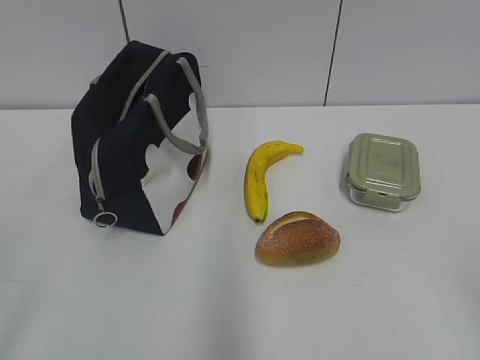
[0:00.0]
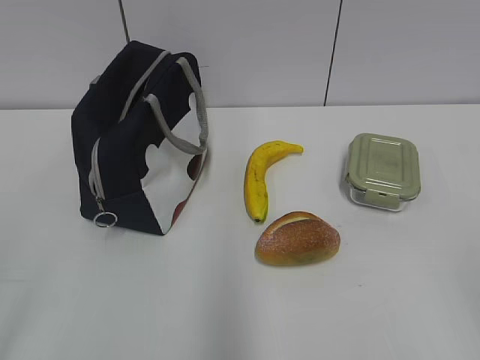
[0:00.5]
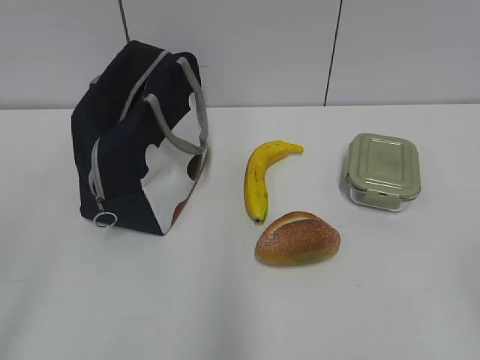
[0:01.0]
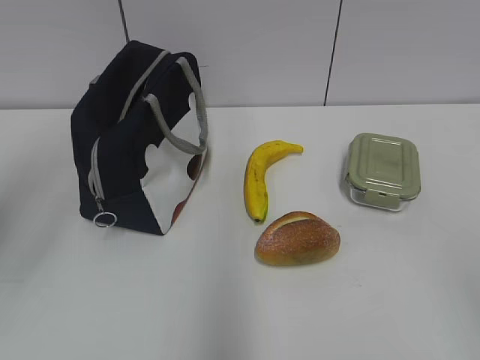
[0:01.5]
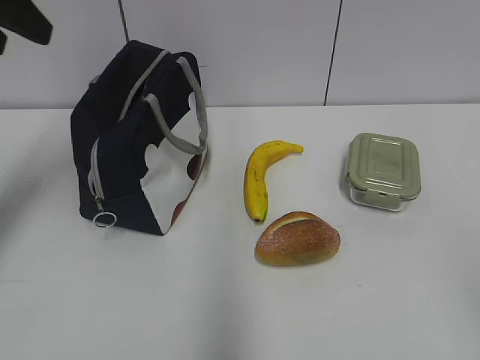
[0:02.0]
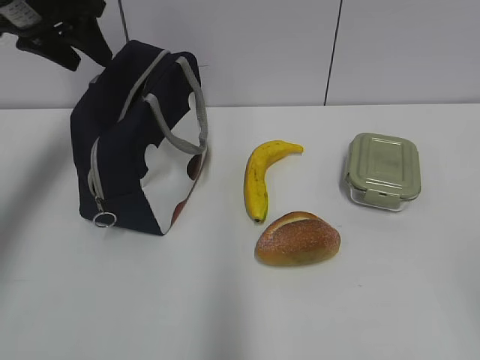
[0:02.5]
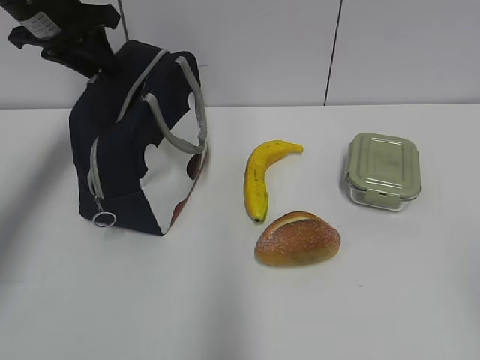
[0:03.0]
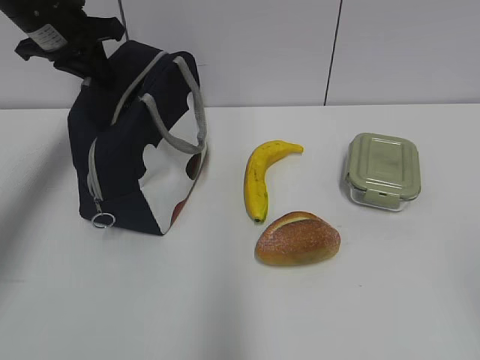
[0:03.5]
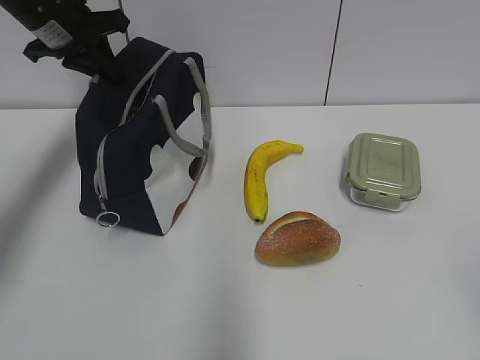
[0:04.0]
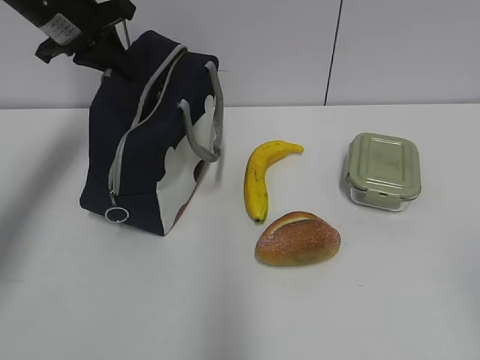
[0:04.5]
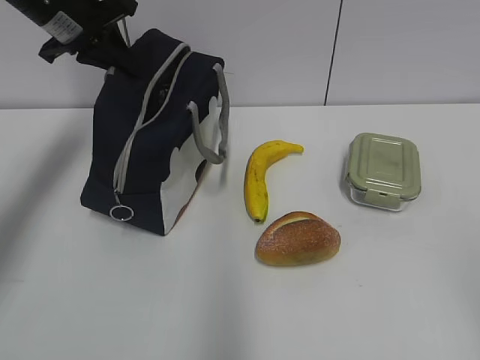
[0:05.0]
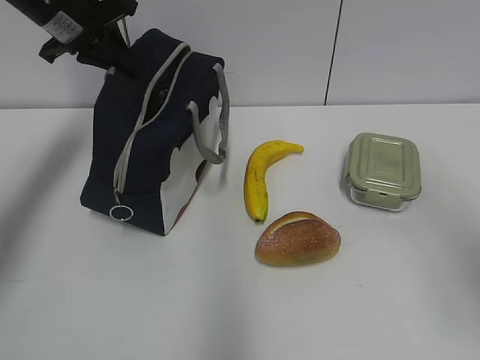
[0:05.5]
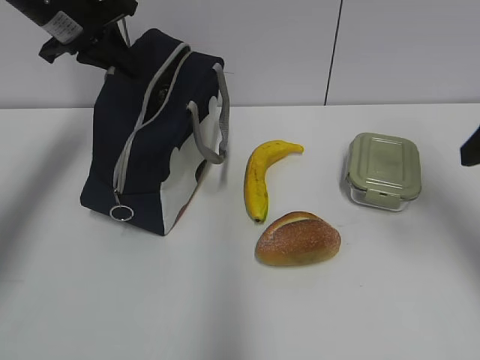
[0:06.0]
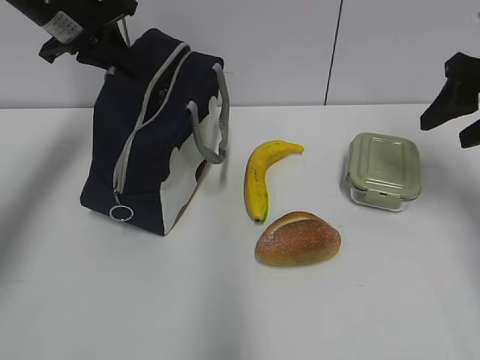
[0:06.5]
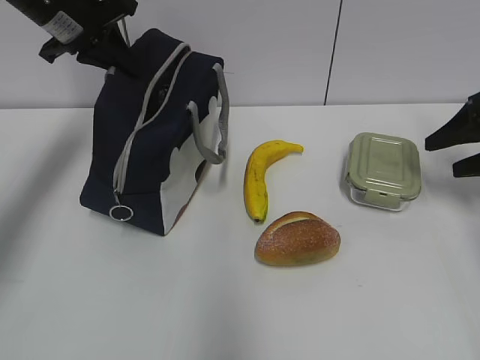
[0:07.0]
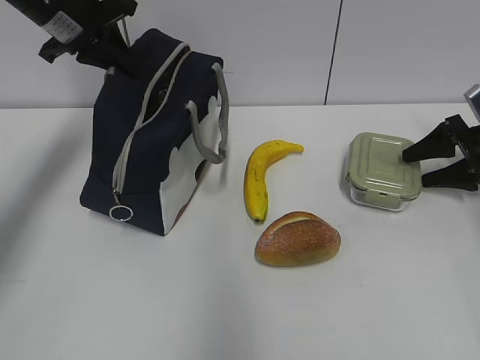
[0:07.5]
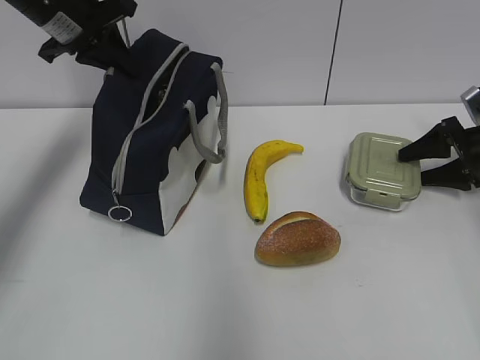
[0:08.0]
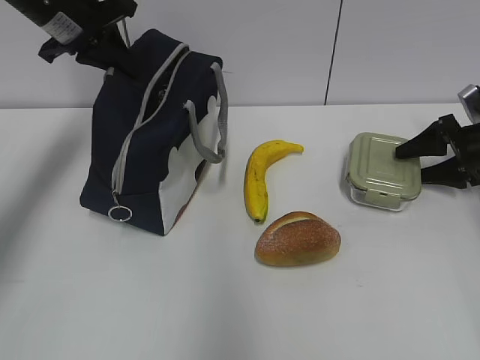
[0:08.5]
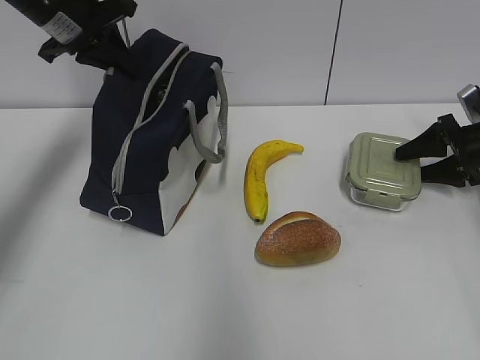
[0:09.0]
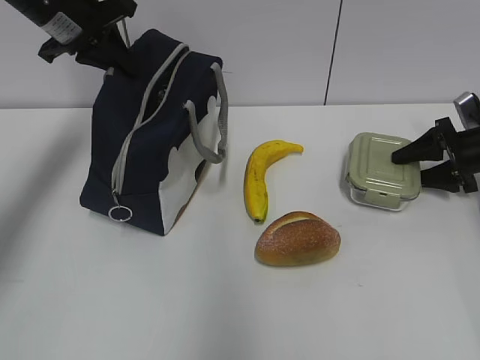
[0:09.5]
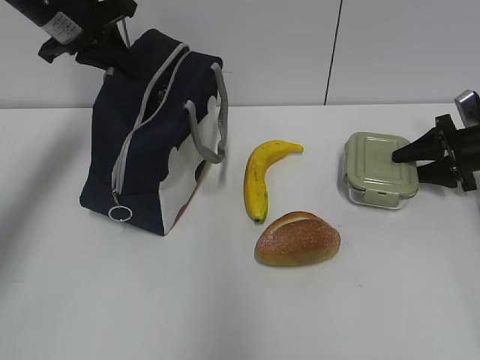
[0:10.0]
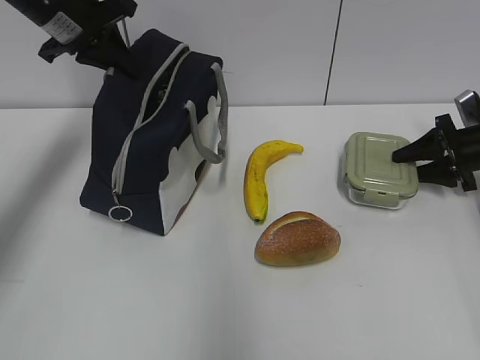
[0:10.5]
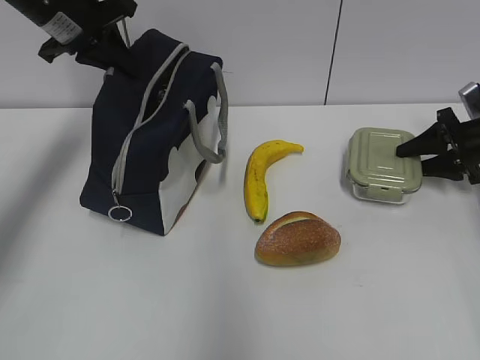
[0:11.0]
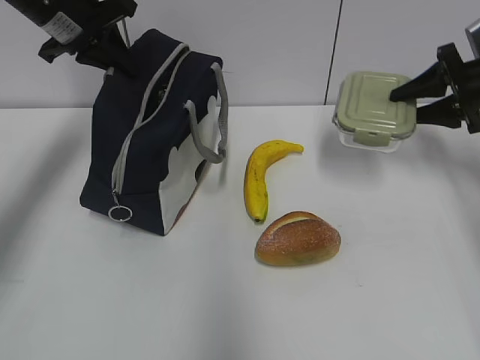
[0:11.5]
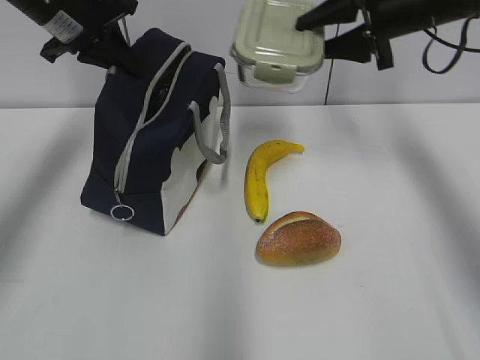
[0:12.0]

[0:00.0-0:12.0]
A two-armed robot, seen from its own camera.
Step, 0:00.0 to 0:10.0: Grab the lunch box with your right hand.
0:02.0 to 0:04.0: The left gripper goes roughly 20 cm forward and downward, and closes up.
0:04.0 to 0:06.0: The right gripper shifts roughly 25 cm forward.
0:06.0 to 0:08.0: The right gripper goes roughly 30 cm downward, forward and to the right.
0:08.0 to 0:10.0: There are only small adjustments of the grippers.
0:10.0 to 0:12.0: The right gripper travels upward and to the left by approximately 25 cm.

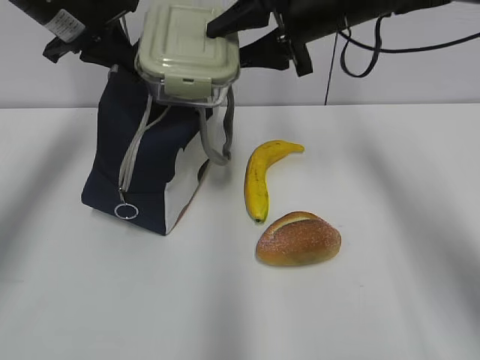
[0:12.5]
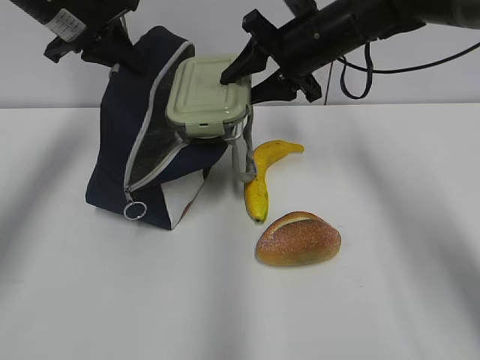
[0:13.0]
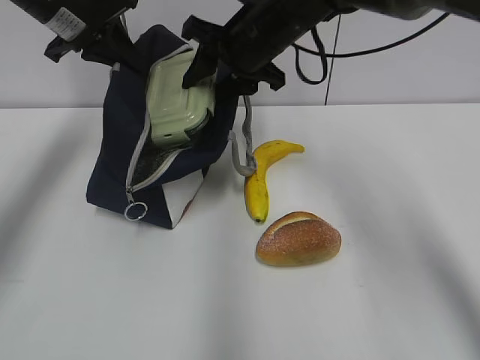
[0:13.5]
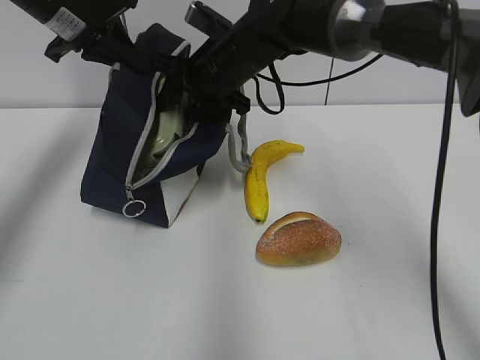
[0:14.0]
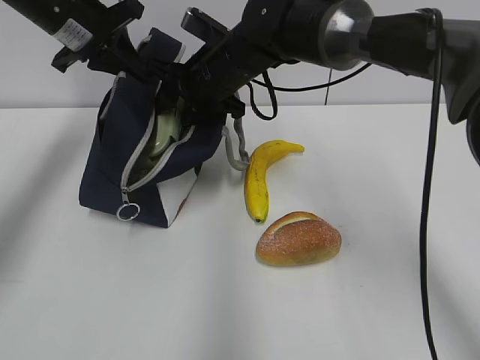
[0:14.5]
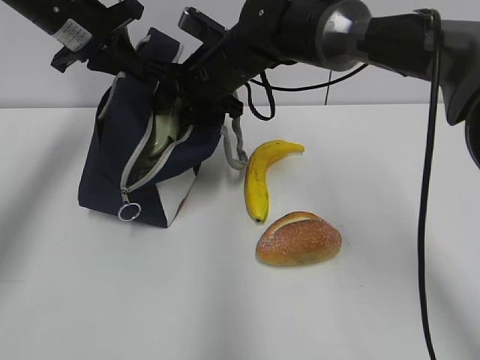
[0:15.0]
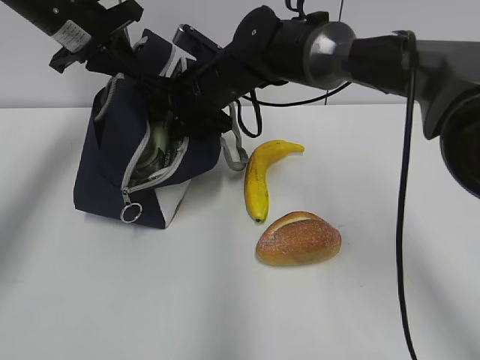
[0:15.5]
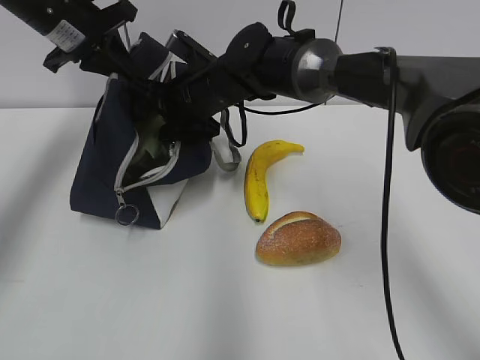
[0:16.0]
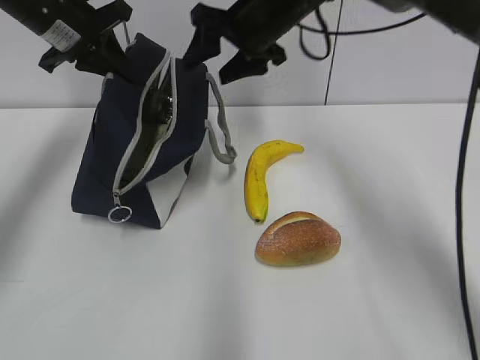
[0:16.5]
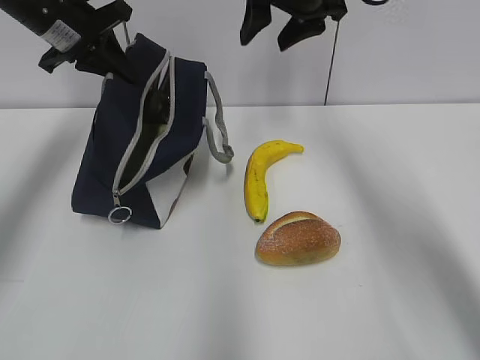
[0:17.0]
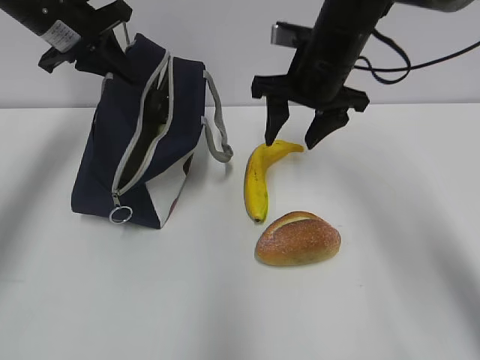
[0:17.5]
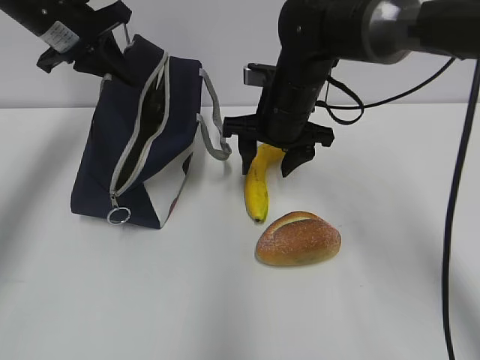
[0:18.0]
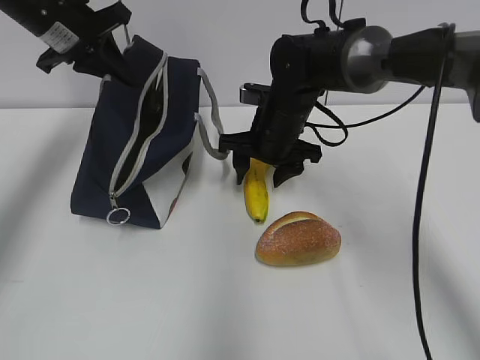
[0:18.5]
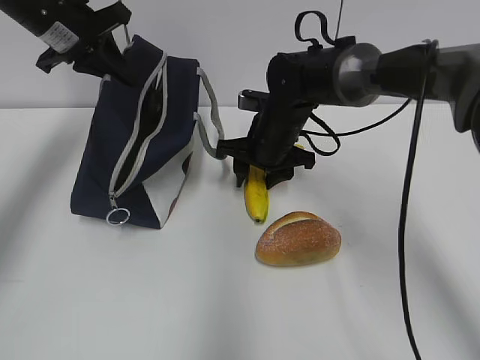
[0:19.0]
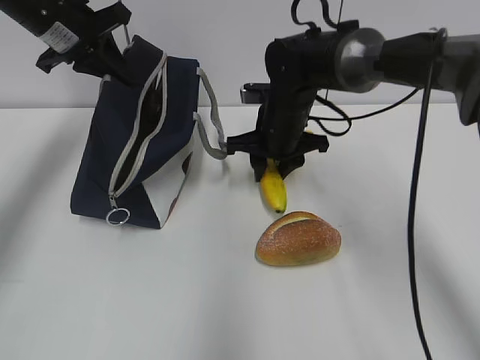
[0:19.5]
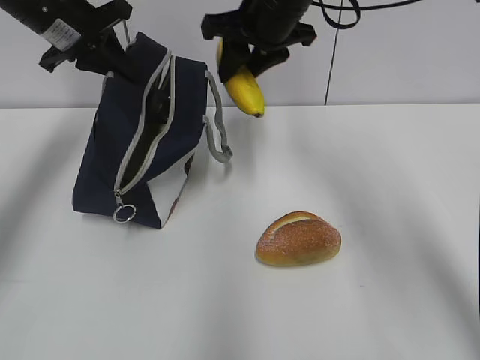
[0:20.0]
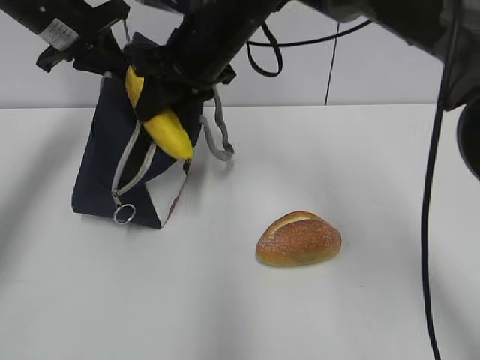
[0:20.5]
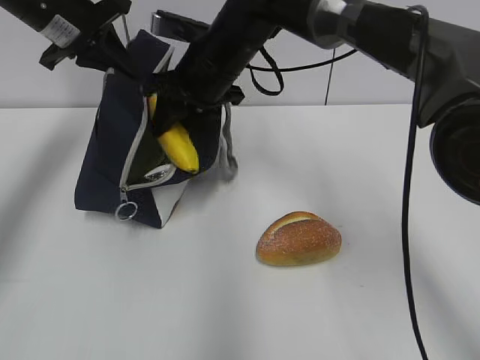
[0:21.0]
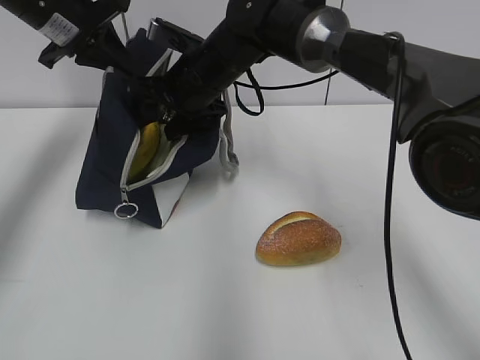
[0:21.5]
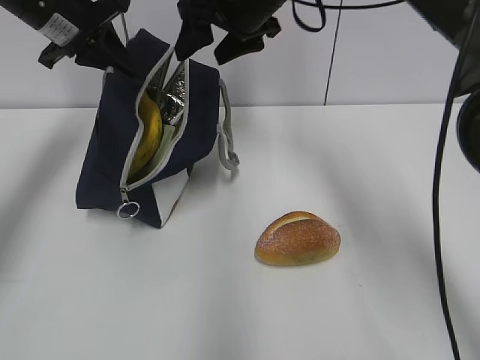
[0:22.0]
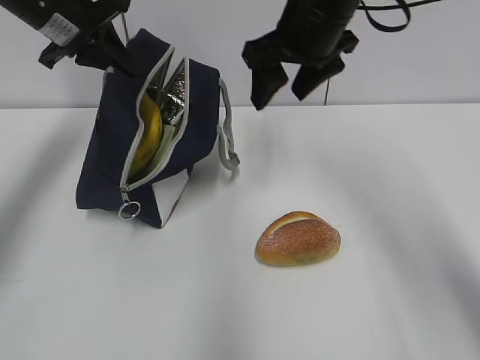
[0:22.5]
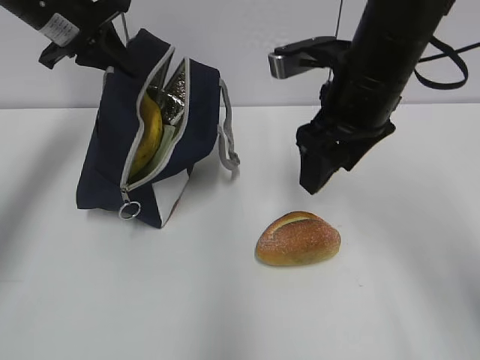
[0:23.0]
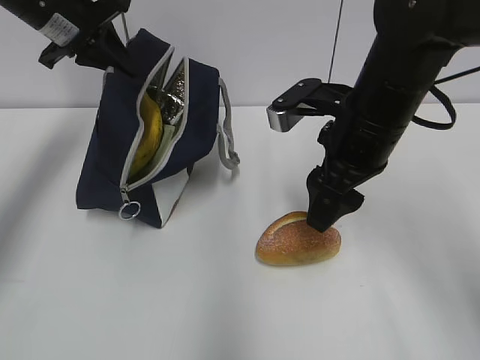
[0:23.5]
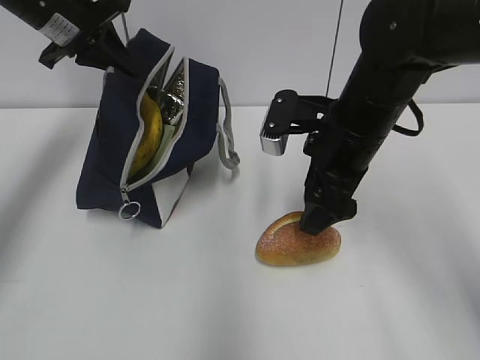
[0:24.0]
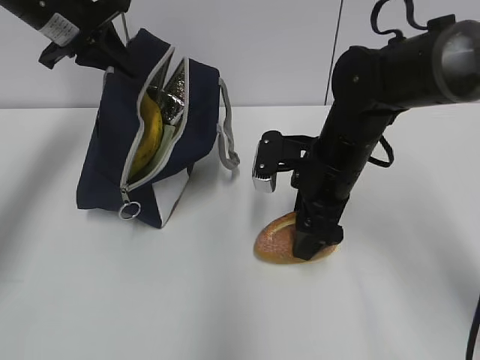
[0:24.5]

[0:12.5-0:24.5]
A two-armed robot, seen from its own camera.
Step, 0:13.0 to 0:16.0: Place it into the bag with your right hand.
Step, 0:16.5 to 0:19.0: Grab the banana with your right hand.
Step, 0:19.5 to 0:21.5: Place it into the bag with your right hand.
0:12.5 to 0:14.5: The right gripper heads to the left and downward, covering roughly 15 cm.
0:14.5 to 0:16.5: The right gripper goes approximately 10 cm to the right and upward.
0:16.5 to 0:18.5: The right gripper travels downward by approximately 10 cm.
0:18.5 to 0:20.5: The right gripper heads upward and to the left, covering roughly 15 cm.
0:20.5 to 0:22.5: The right gripper travels to the right by roughly 10 cm, and opens its fingers.
0:22.5 to 0:24.5: The right gripper moves downward, roughly 15 cm.

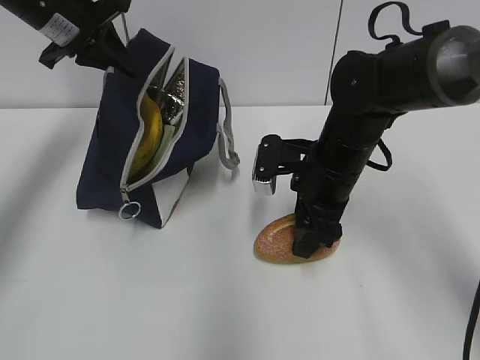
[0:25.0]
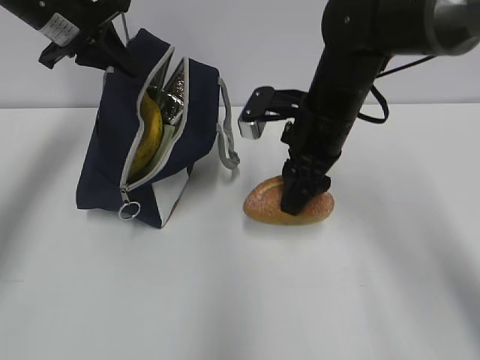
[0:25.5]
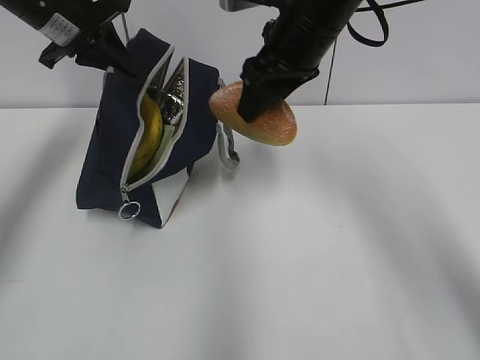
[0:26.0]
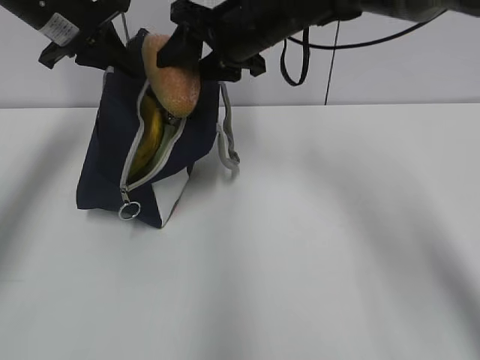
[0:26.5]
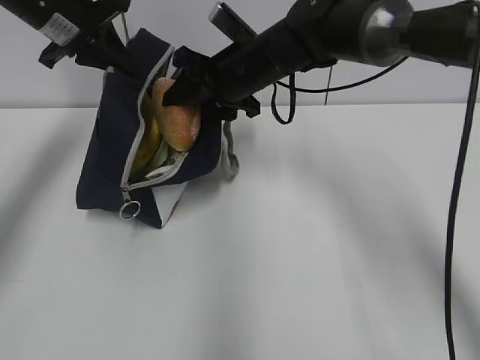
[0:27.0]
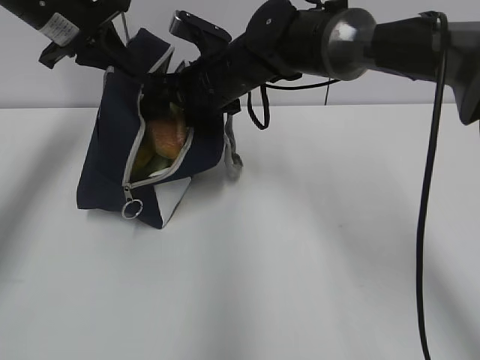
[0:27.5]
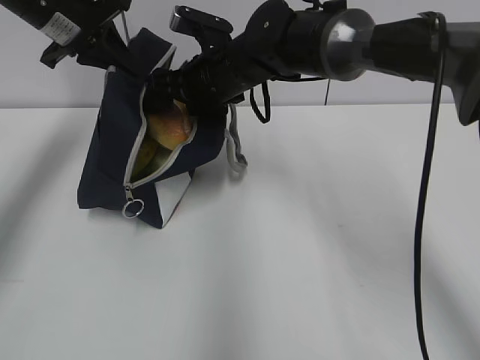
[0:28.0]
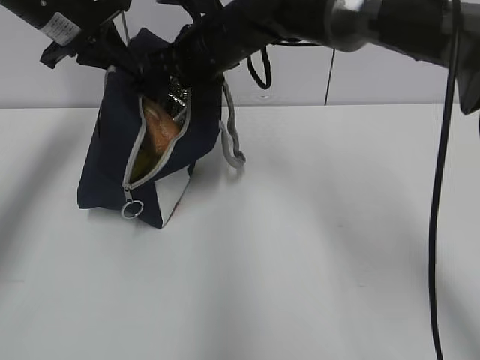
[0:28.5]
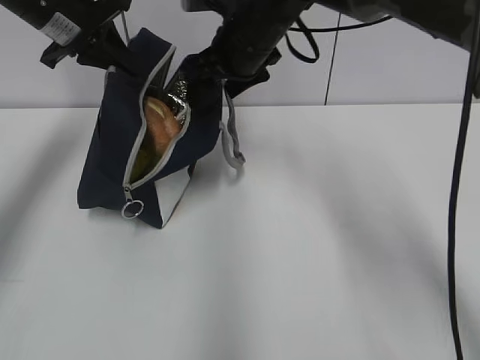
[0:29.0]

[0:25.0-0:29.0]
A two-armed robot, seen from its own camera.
0:25.0 to 0:27.0: The right gripper travels forward, to the left and upward by roughly 15 cm.
